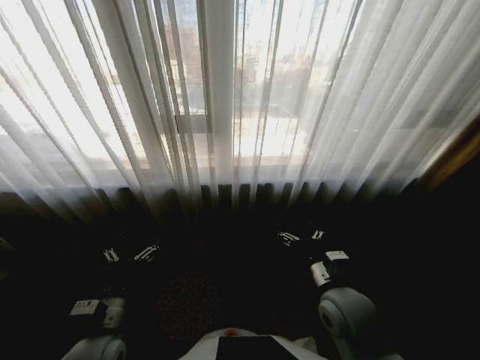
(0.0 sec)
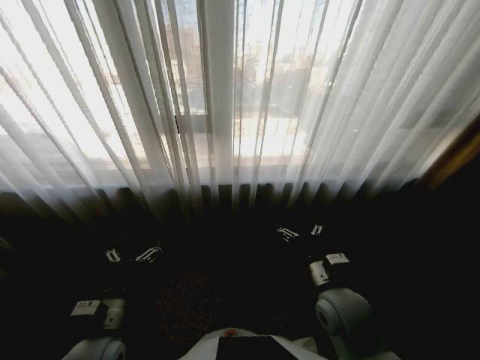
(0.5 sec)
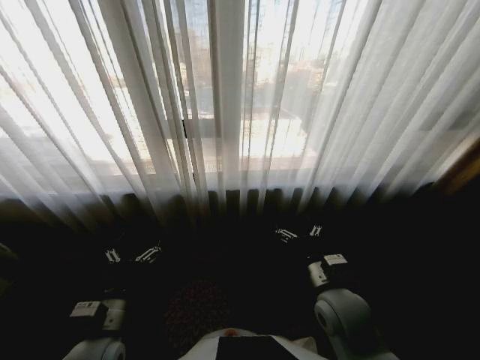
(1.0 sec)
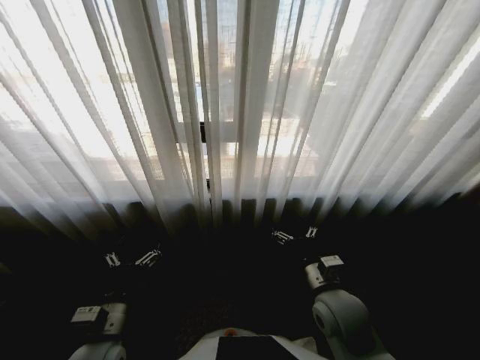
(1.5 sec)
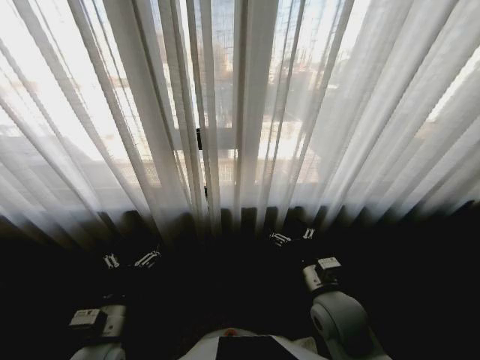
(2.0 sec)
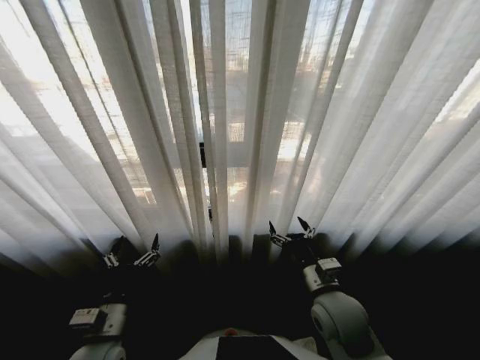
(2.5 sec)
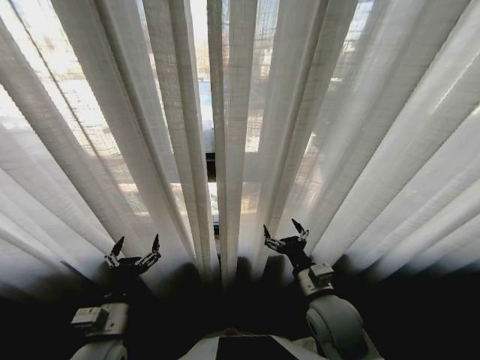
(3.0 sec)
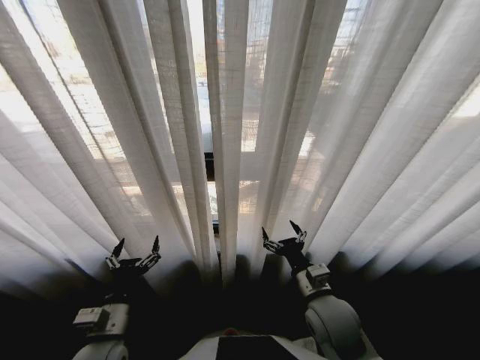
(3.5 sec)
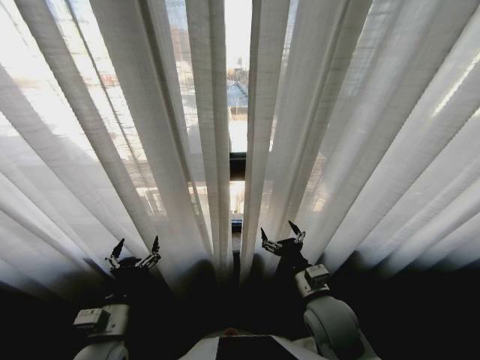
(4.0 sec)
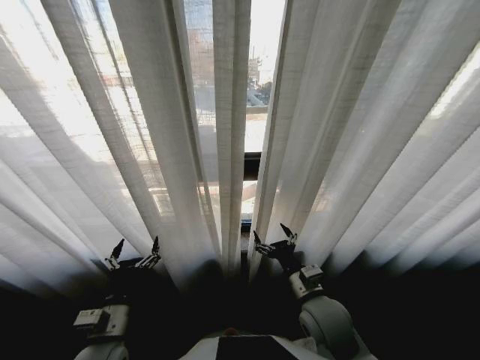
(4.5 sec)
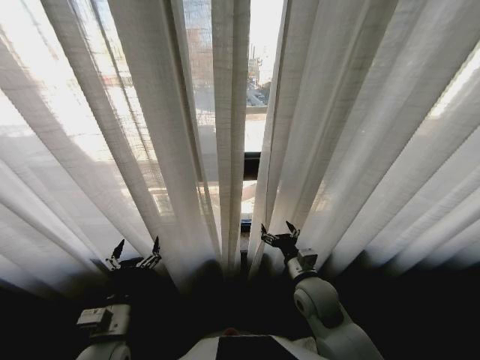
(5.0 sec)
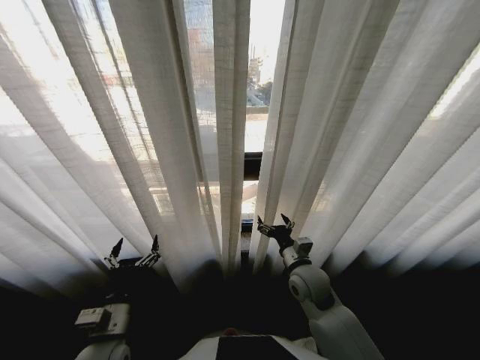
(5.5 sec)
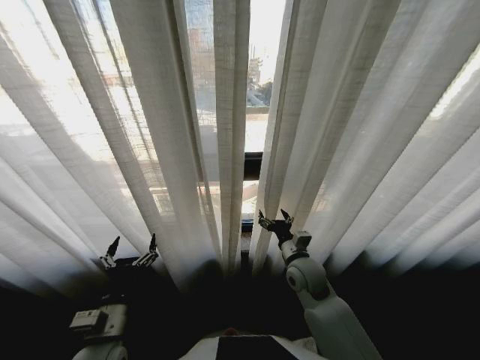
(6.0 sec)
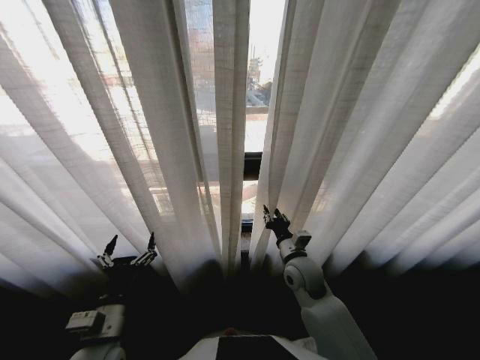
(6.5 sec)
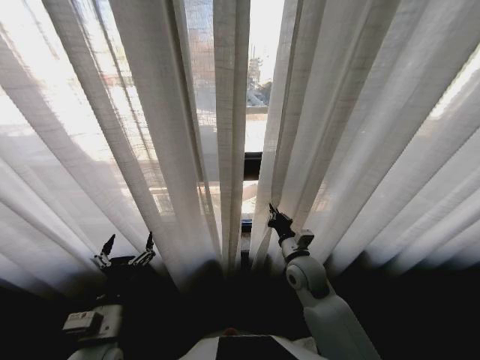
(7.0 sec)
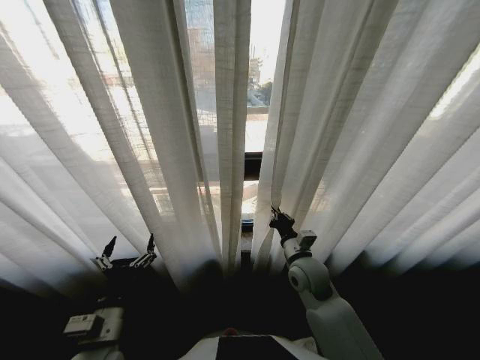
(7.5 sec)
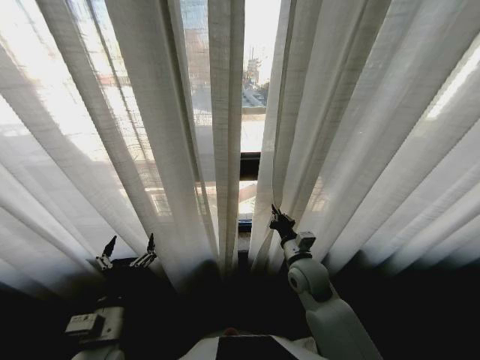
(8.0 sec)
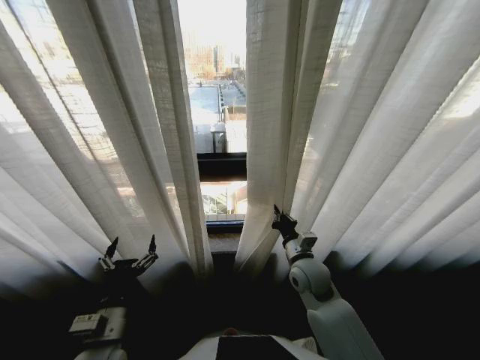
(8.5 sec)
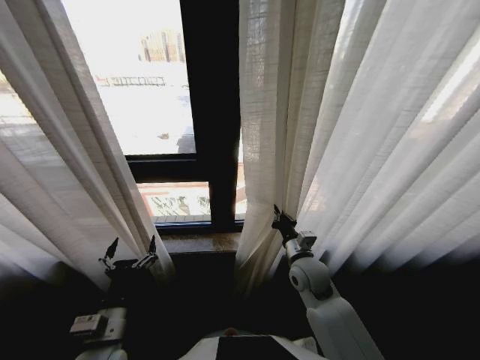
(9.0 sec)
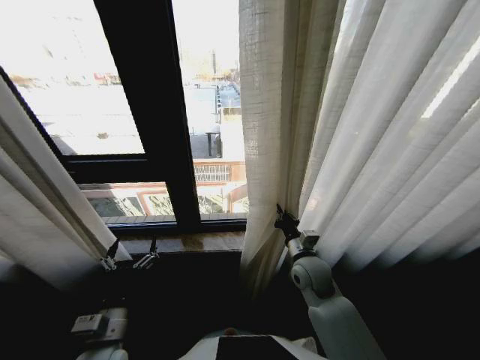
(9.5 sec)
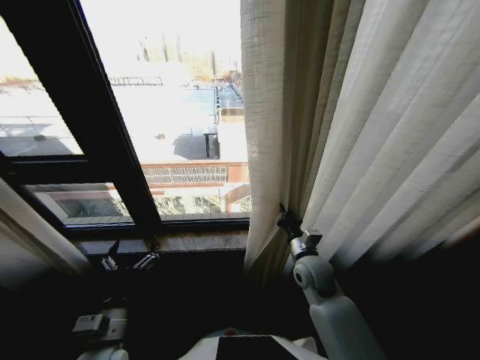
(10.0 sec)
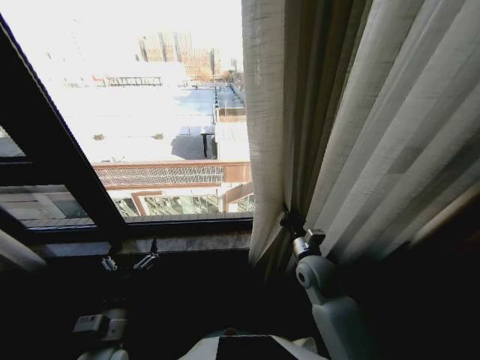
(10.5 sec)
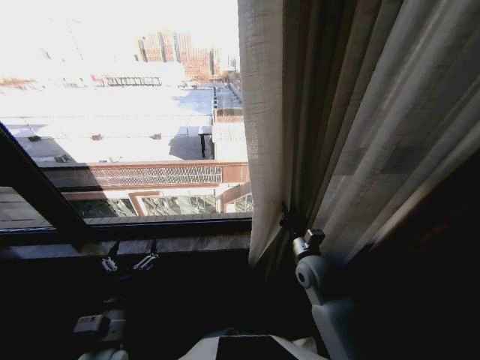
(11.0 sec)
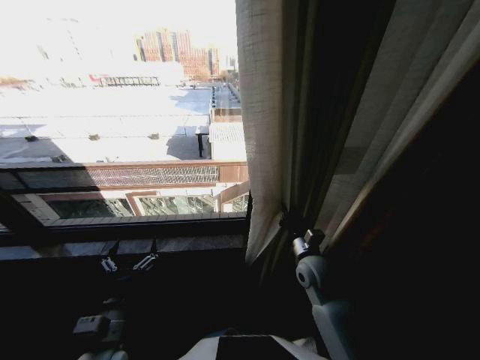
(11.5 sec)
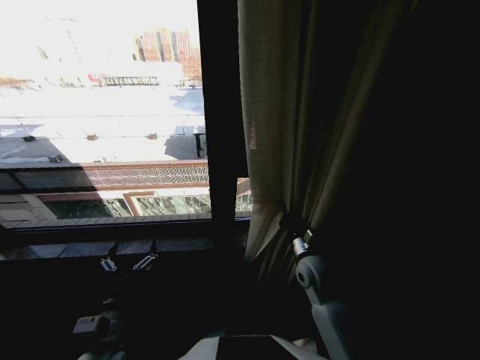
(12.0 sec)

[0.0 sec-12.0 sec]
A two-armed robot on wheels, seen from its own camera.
Task of the whole recording: Open the curtains by pulling them apart, changing their state from closed to fully open.
4.0 sec to 6.0 sec: The right gripper is displaced forward by approximately 10 cm.
6.0 sec to 8.0 sec: The right gripper closes up.

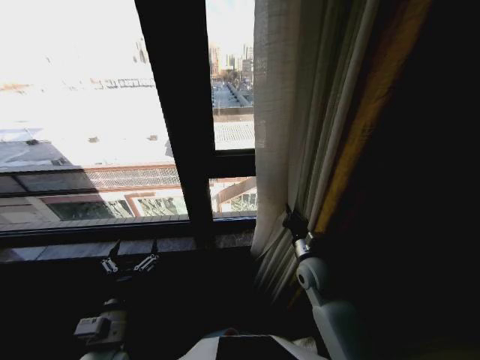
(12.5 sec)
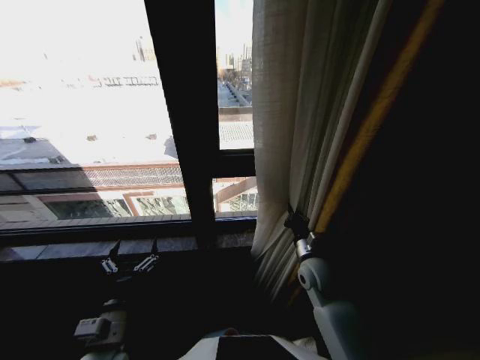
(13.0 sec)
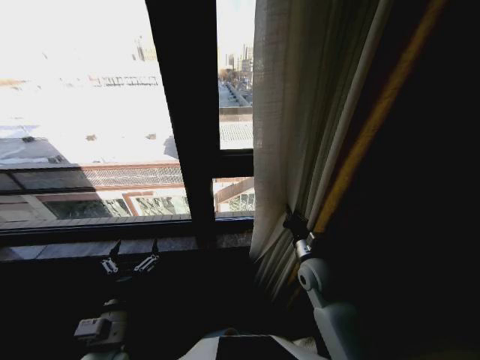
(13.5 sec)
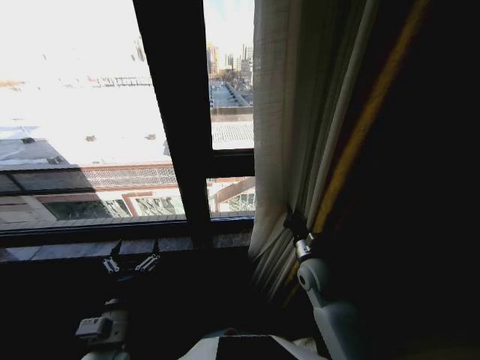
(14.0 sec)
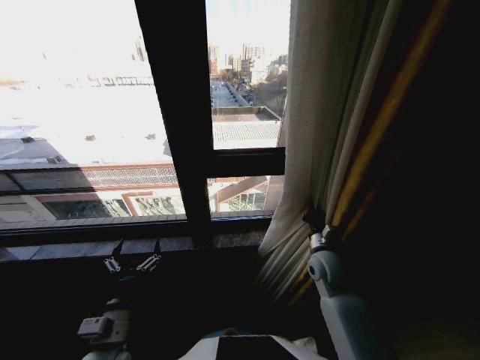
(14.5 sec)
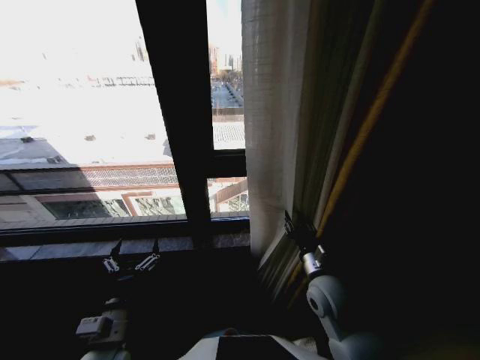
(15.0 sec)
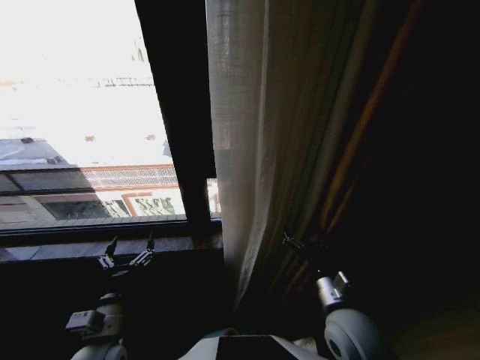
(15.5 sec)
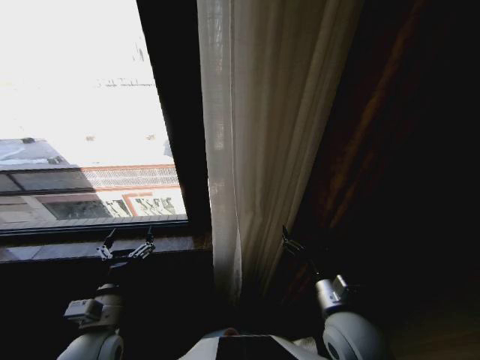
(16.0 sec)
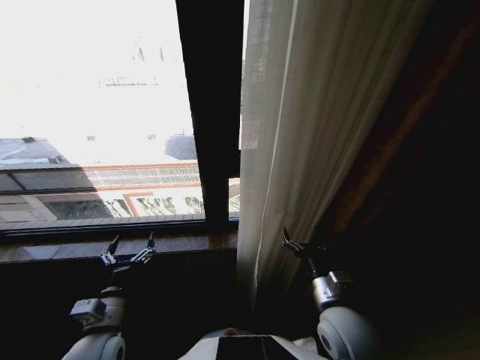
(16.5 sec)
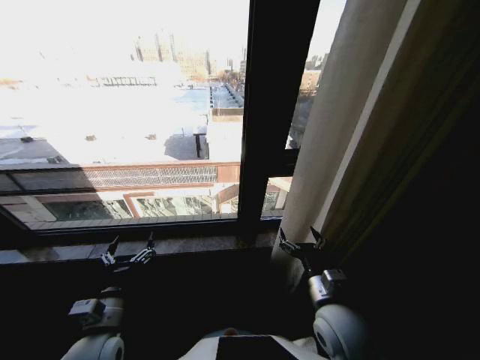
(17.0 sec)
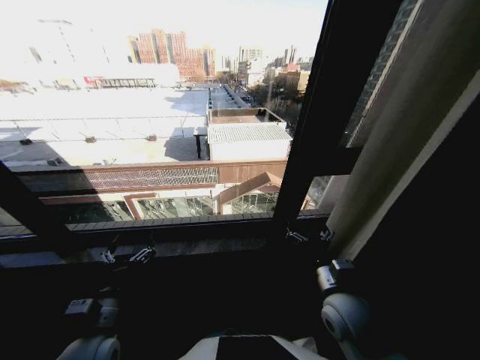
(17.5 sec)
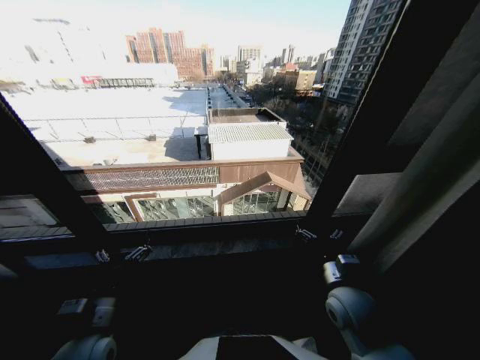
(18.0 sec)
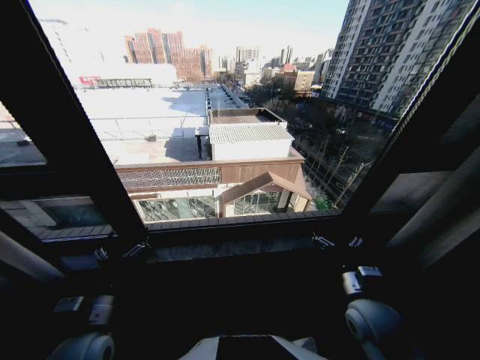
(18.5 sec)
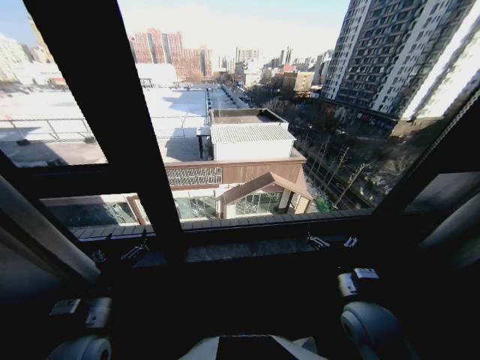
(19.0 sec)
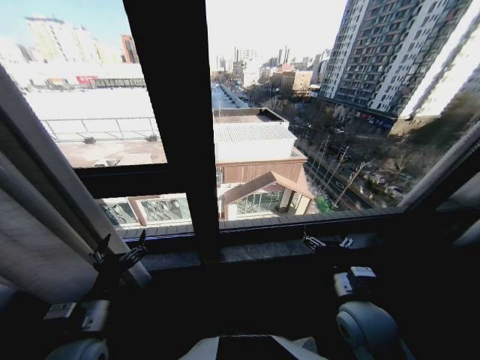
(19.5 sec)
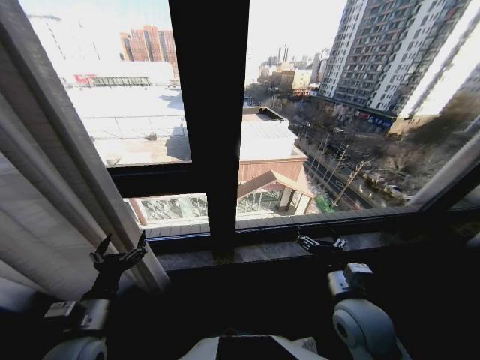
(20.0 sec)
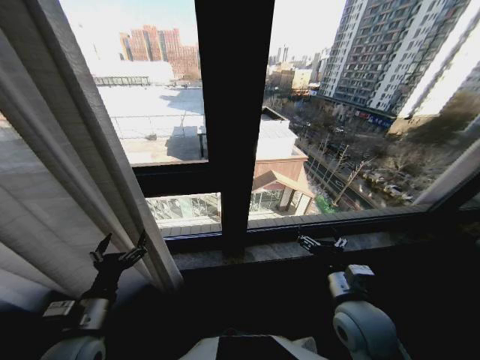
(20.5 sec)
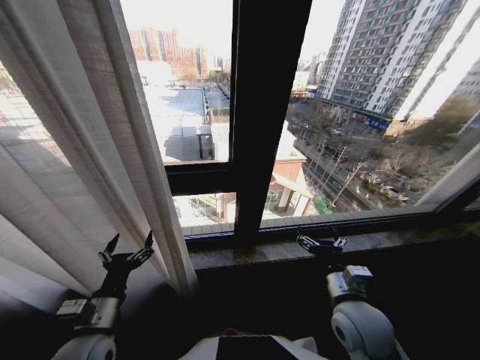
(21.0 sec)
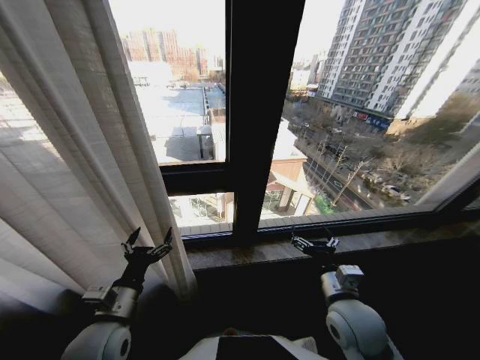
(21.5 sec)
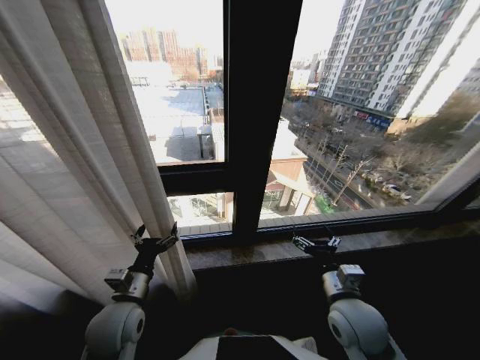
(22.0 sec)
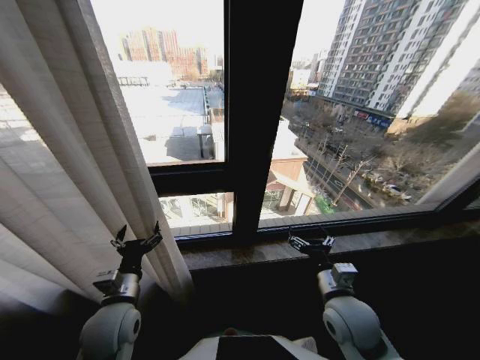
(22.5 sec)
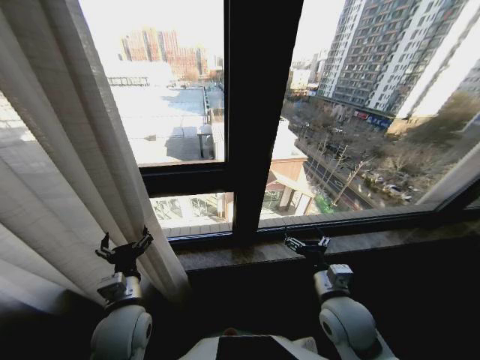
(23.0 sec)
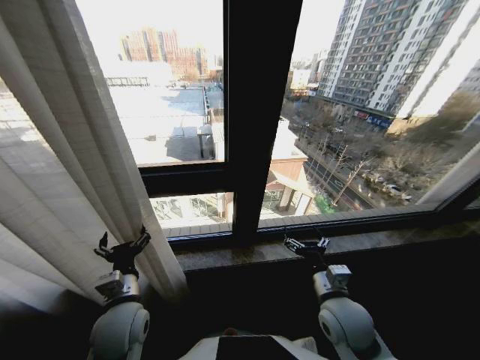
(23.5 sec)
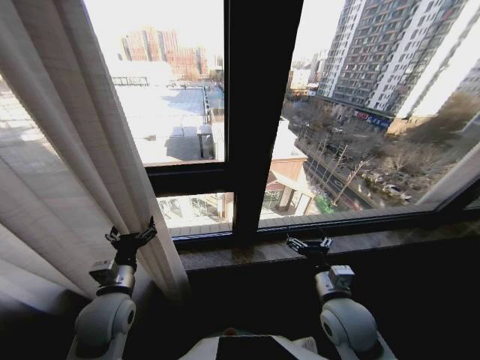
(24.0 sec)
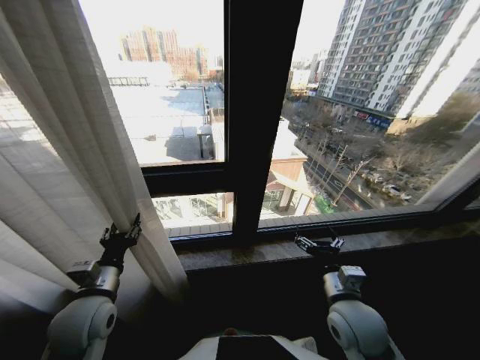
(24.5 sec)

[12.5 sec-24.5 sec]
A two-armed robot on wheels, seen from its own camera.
Task of the whole recording: Open the curtains by pulling them apart, changing their state from closed to fully open.
12.5 sec to 14.5 sec: The grippers make only small movements.
14.5 sec to 16.5 sec: The right gripper moves backward, about 15 cm, and opens up.
16.5 sec to 18.5 sec: The right gripper travels to the right by roughly 10 cm.
18.5 sec to 20.5 sec: The right gripper shifts about 5 cm to the left.
20.5 sec to 22.5 sec: The left gripper heads forward, covering roughly 5 cm.
22.5 sec to 24.5 sec: The left gripper closes its fingers.

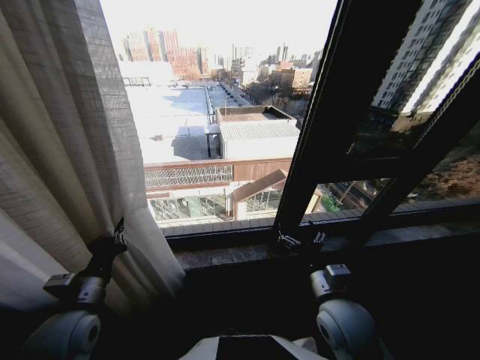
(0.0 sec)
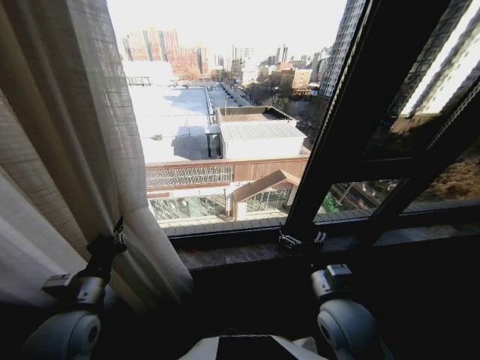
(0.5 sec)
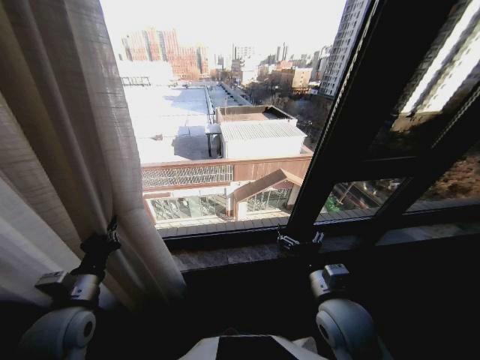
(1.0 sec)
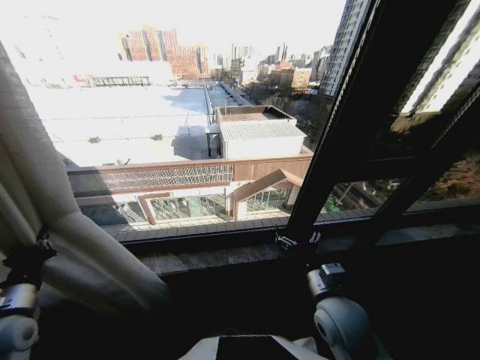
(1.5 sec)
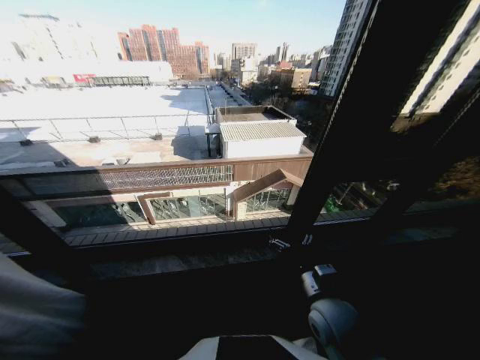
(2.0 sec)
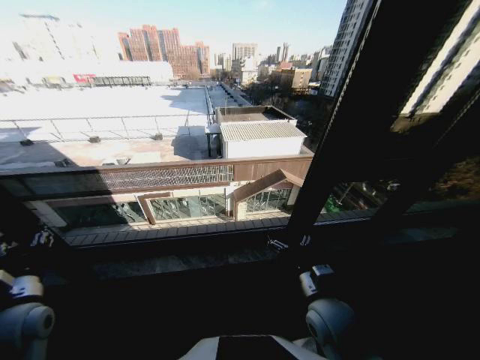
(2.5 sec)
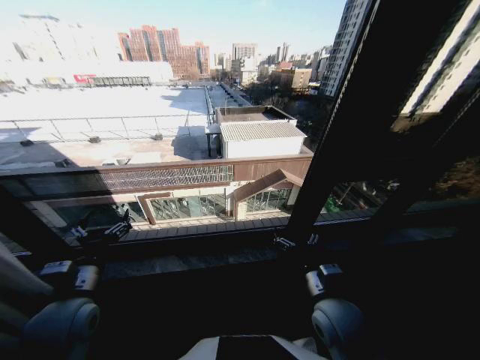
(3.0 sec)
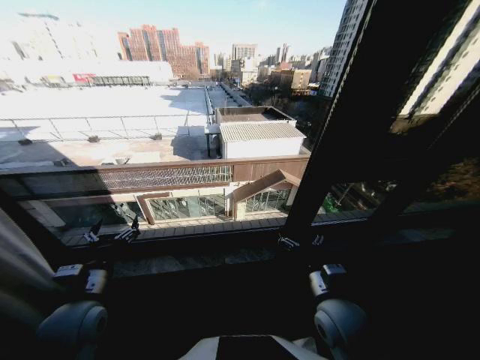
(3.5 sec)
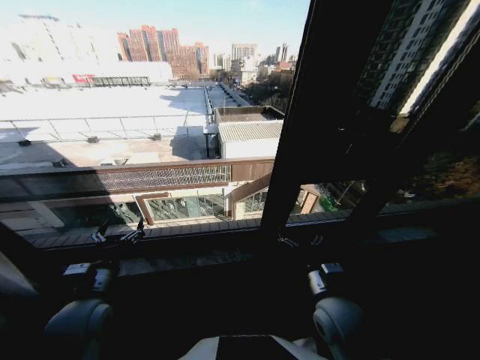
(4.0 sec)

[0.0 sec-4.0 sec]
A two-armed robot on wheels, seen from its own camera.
Task of the whole recording: Open the curtains by pulling them apart, changing their state from closed to fully open.
0.0 sec to 2.0 sec: The left gripper shifts roughly 25 cm to the left.
2.0 sec to 4.0 sec: The left gripper travels to the right by approximately 25 cm, and opens.
